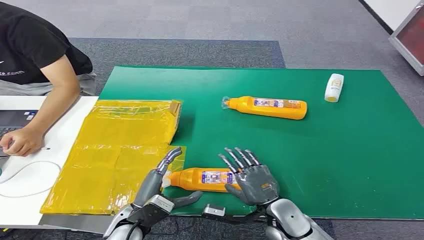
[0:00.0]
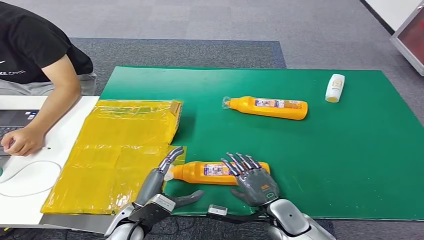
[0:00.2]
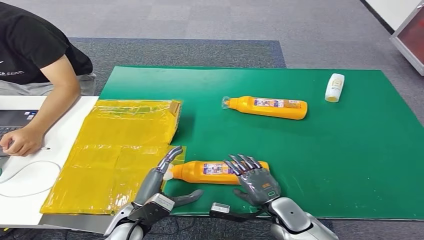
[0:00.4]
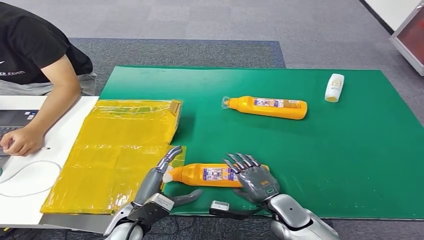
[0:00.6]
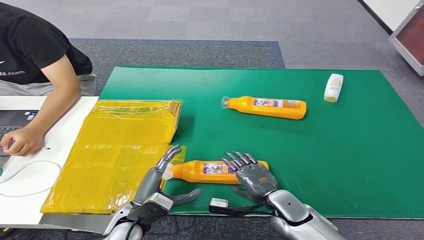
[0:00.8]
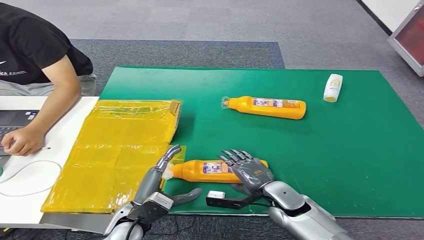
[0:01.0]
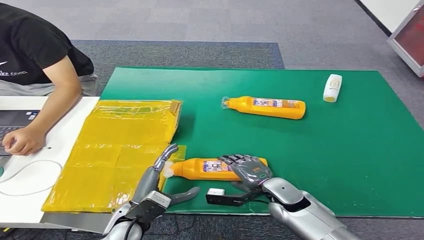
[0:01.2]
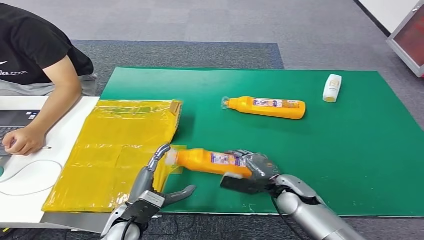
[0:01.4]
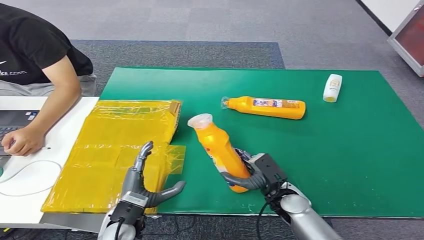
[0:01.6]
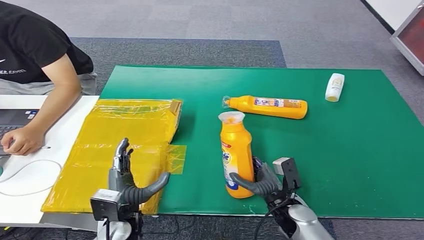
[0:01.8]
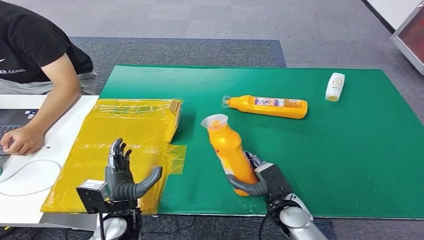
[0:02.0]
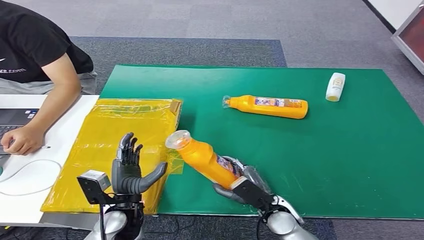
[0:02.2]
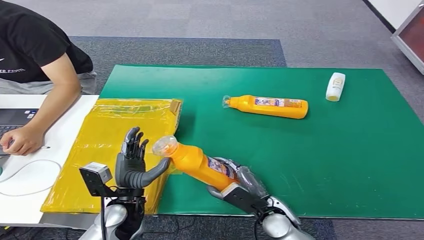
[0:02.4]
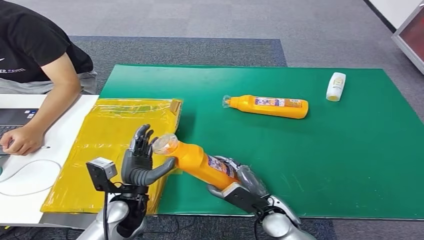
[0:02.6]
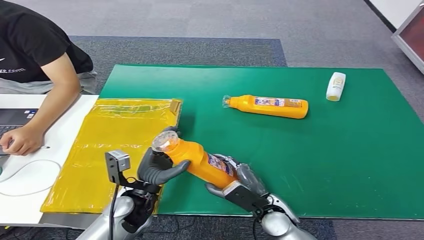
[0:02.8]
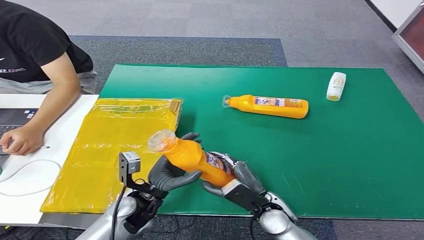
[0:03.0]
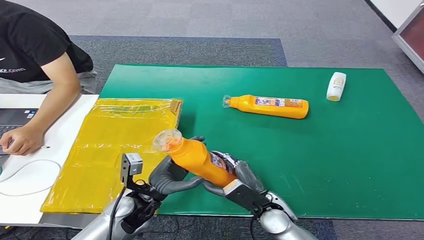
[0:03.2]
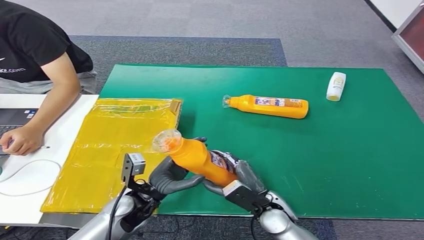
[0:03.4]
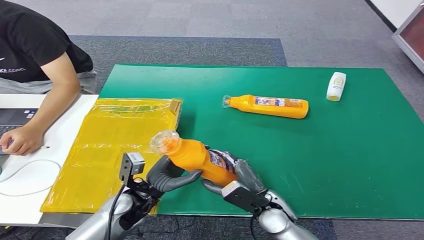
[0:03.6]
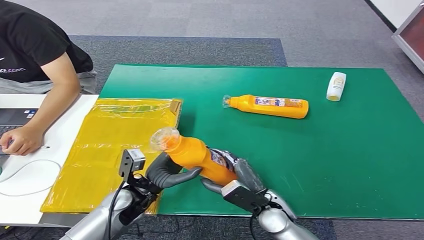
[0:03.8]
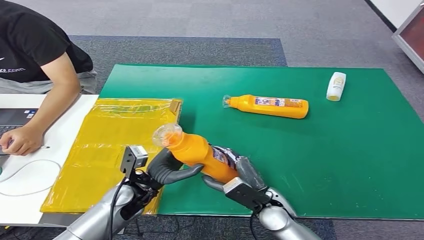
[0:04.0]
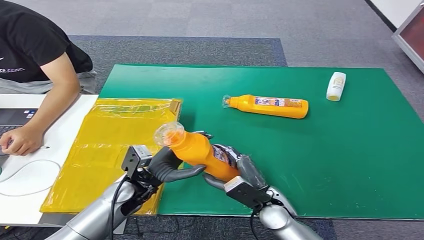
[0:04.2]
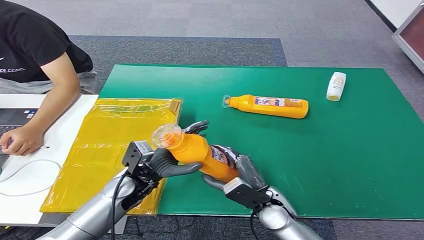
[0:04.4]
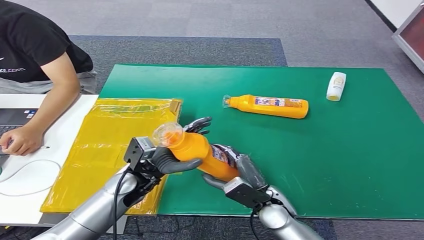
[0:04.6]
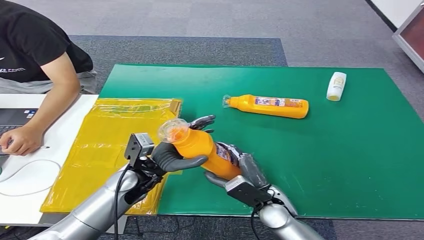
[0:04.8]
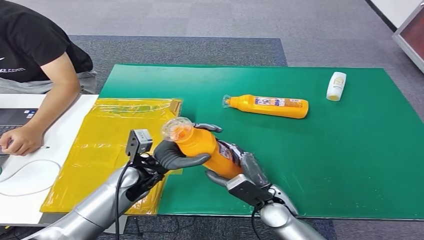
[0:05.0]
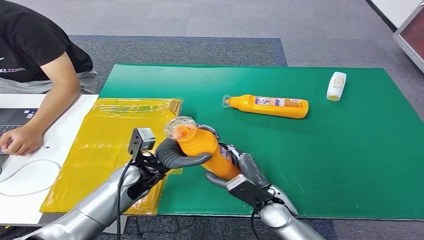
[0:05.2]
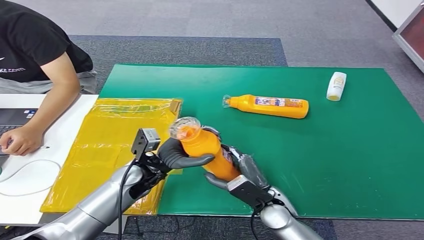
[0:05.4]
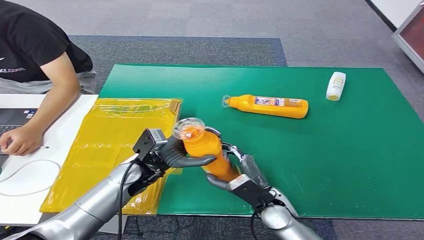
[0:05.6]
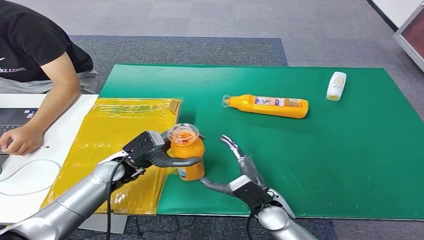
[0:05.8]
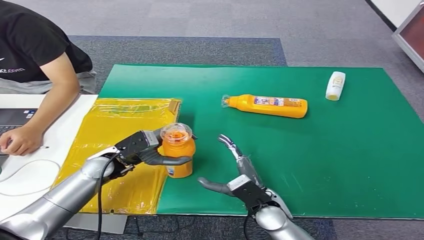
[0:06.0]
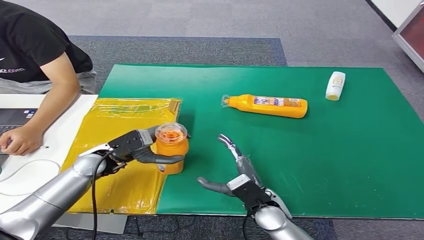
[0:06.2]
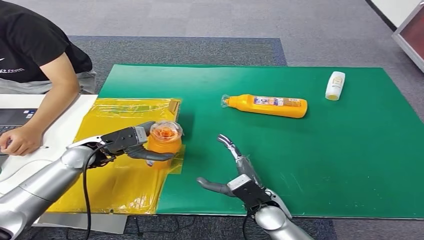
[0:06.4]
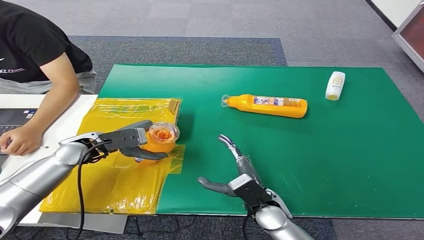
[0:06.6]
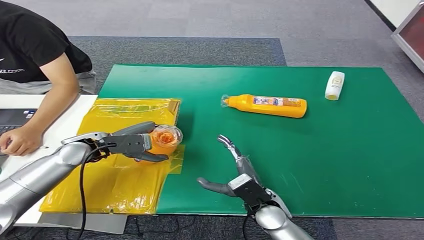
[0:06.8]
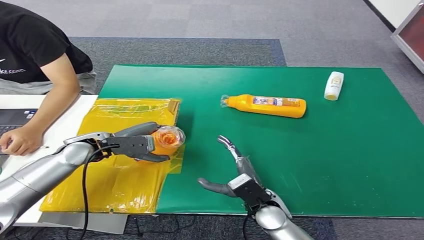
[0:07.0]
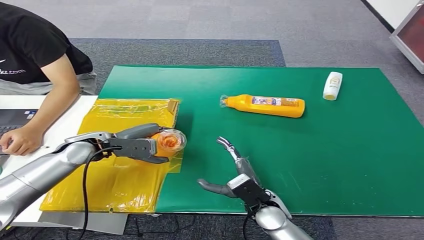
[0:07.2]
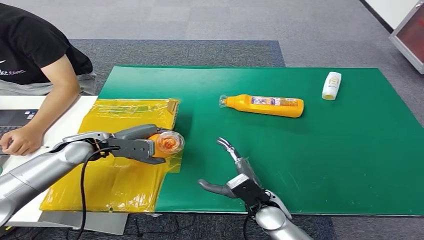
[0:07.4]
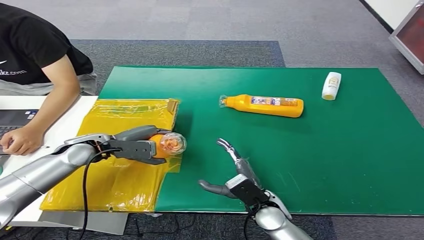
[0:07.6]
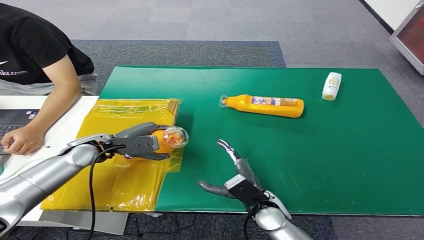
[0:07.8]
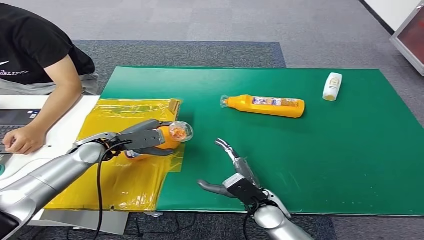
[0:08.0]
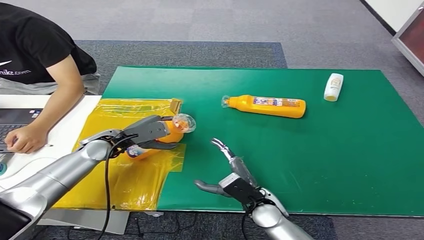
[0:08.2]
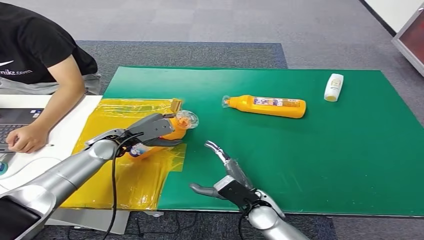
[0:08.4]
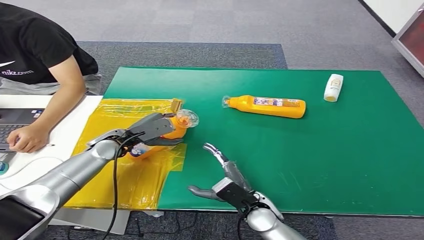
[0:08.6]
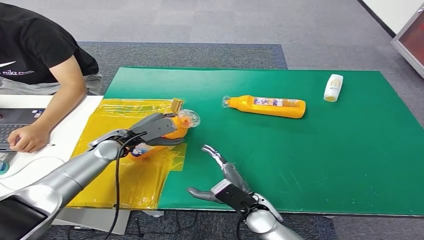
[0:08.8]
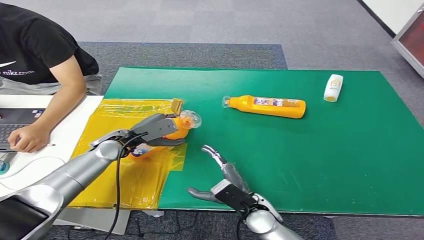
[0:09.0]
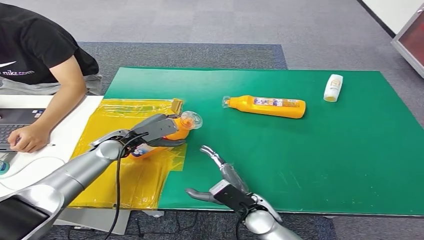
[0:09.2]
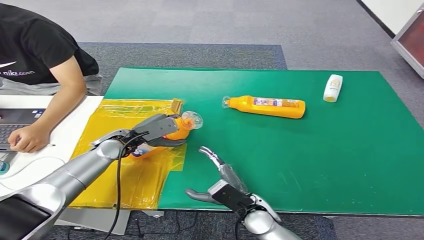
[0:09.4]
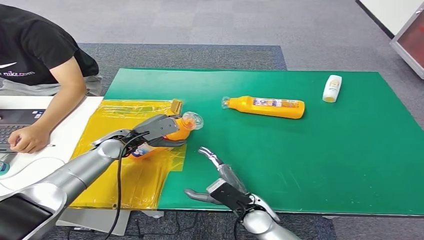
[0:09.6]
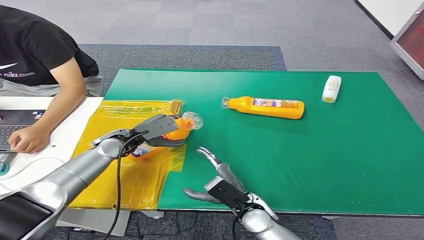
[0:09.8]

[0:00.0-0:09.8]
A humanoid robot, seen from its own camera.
Step, 0:00.0 to 0:02.6: Pick up the bottle from the table.
0:04.2 to 0:05.6: The left hand changes place by about 5 cm.
0:05.6 to 0:07.0: The left hand moves to the left and forward, about 15 cm.
0:08.4 to 0:09.8: The hands stay close to where they were, moving slightly.

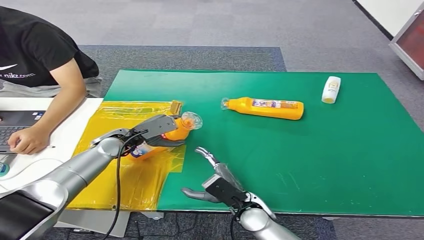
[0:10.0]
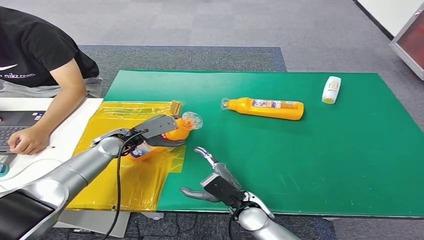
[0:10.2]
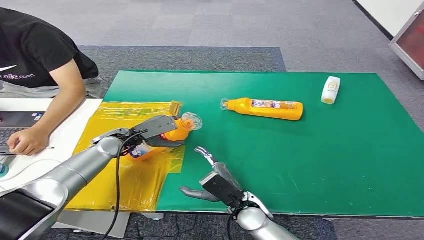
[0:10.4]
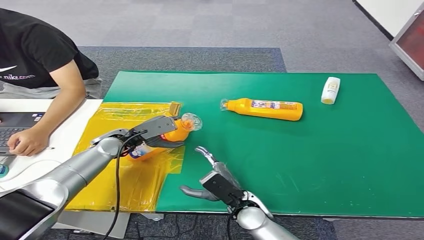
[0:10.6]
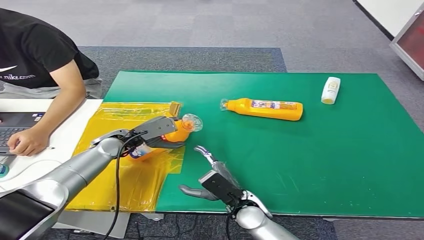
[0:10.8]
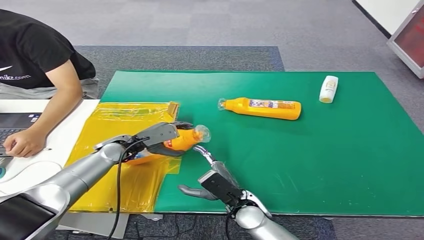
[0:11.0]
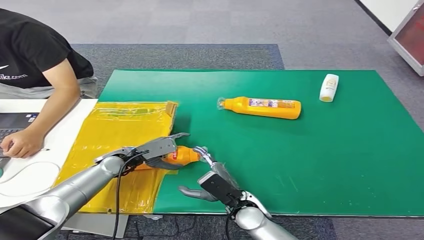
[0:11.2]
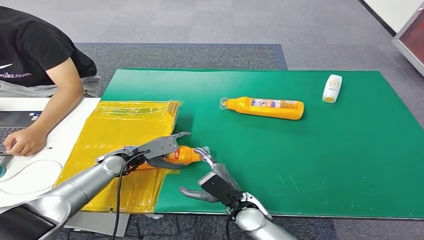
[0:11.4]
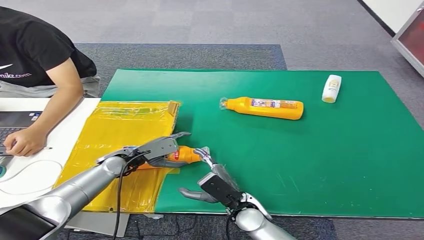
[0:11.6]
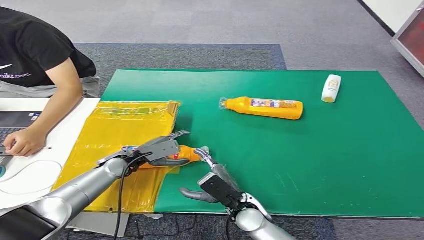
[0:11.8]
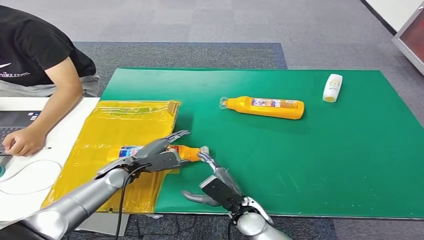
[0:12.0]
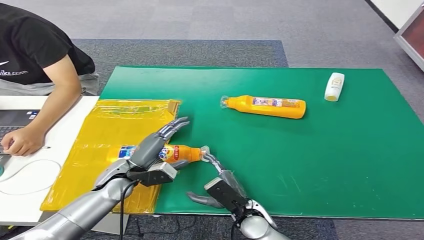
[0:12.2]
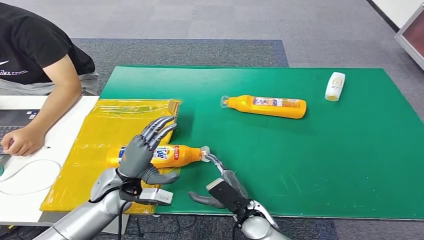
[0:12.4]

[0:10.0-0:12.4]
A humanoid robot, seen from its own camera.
Step, 0:10.0 to 0:12.4: Turn the bottle to the front side.
0:10.0 to 0:11.2: The left hand ends up roughly 5 cm from where it was.
